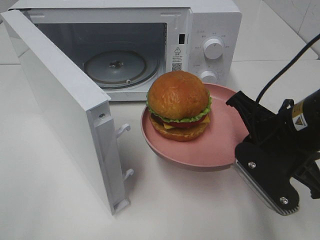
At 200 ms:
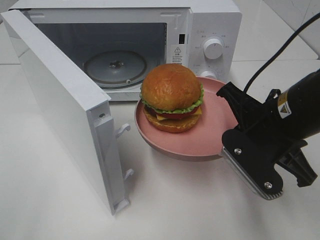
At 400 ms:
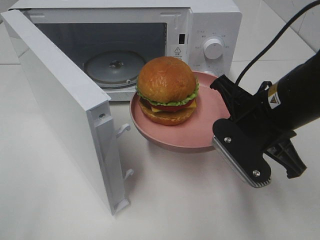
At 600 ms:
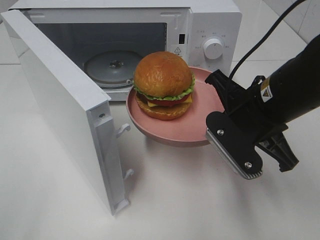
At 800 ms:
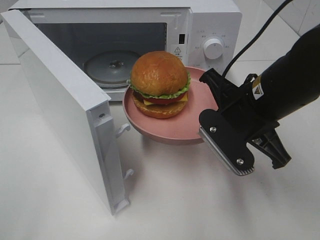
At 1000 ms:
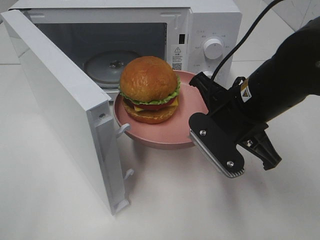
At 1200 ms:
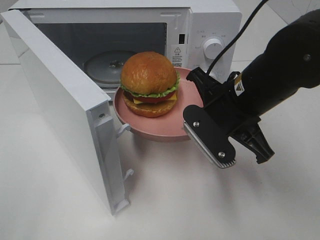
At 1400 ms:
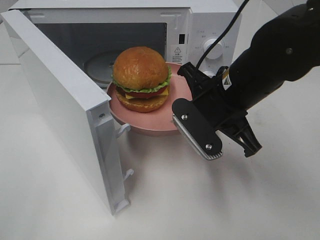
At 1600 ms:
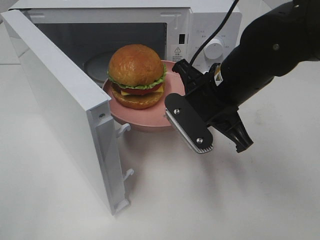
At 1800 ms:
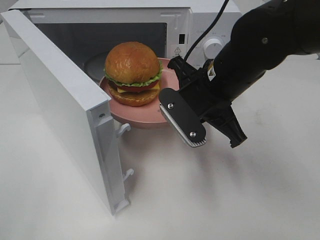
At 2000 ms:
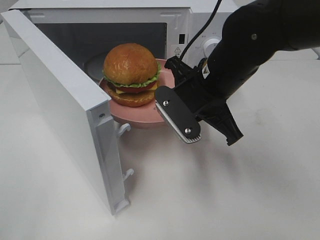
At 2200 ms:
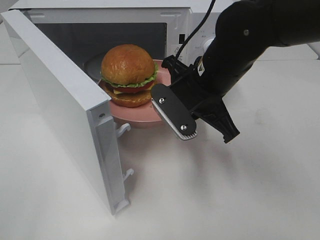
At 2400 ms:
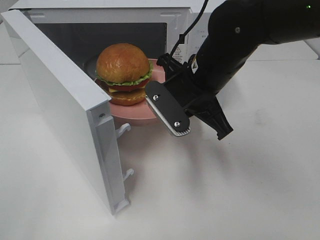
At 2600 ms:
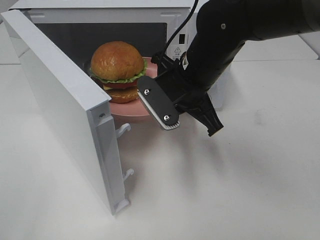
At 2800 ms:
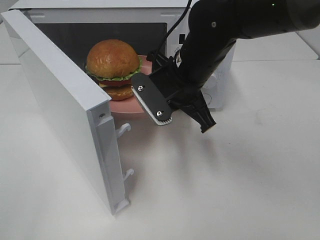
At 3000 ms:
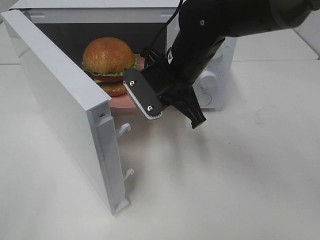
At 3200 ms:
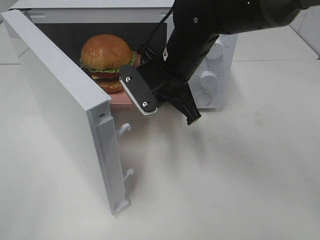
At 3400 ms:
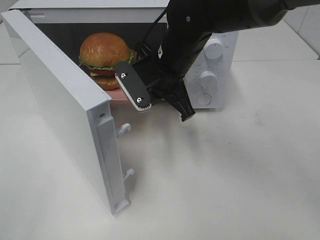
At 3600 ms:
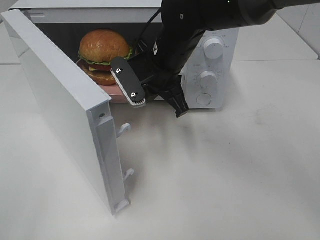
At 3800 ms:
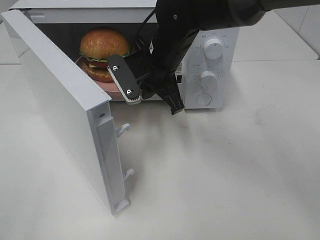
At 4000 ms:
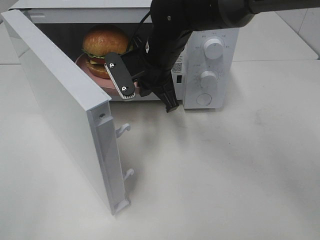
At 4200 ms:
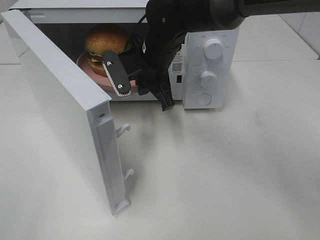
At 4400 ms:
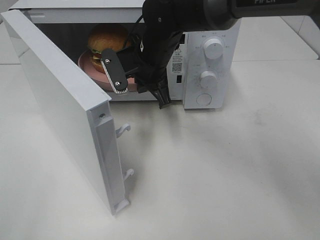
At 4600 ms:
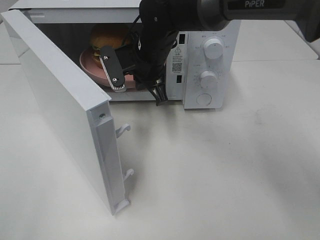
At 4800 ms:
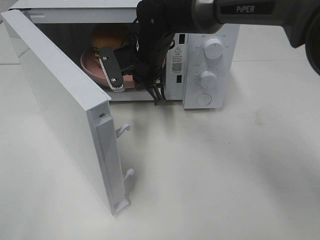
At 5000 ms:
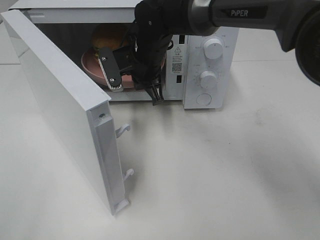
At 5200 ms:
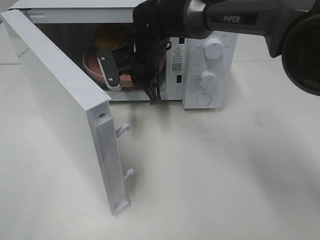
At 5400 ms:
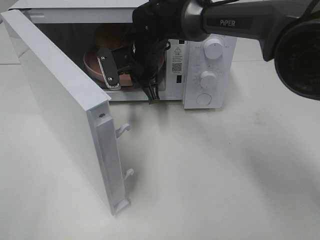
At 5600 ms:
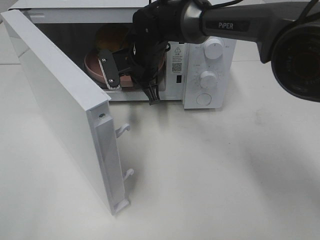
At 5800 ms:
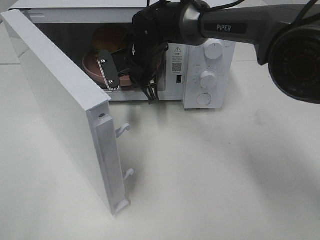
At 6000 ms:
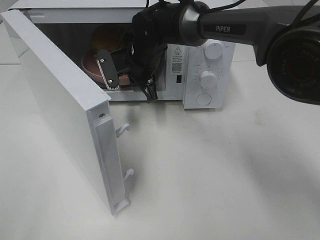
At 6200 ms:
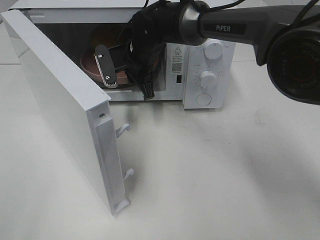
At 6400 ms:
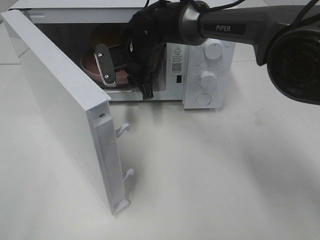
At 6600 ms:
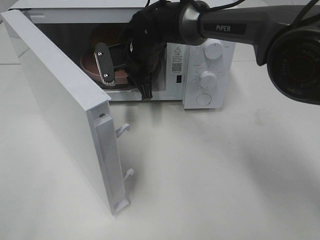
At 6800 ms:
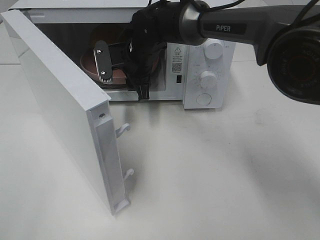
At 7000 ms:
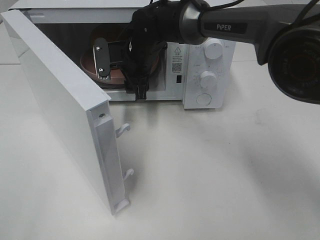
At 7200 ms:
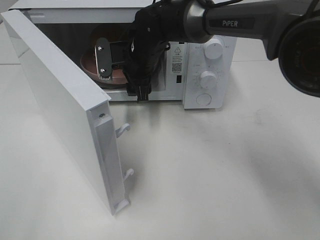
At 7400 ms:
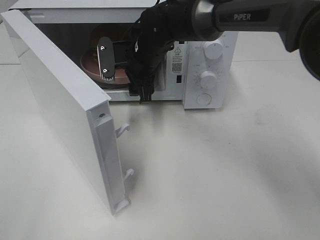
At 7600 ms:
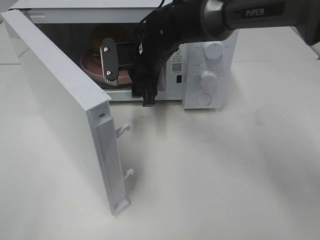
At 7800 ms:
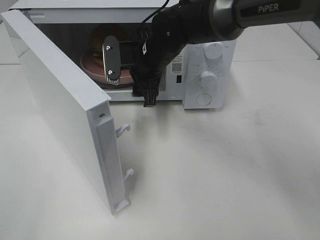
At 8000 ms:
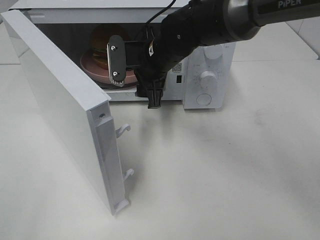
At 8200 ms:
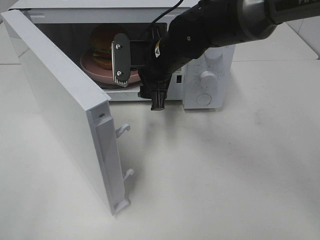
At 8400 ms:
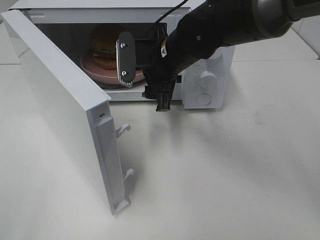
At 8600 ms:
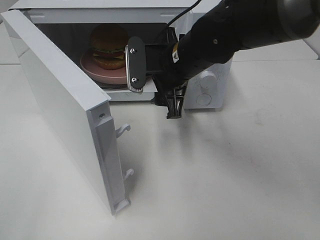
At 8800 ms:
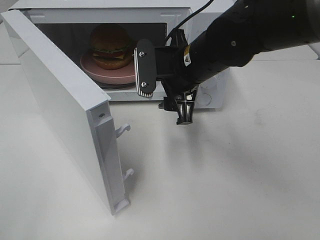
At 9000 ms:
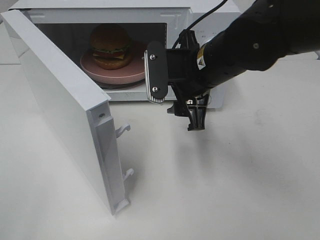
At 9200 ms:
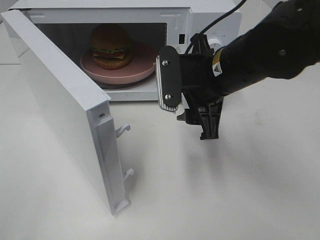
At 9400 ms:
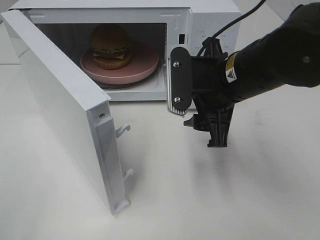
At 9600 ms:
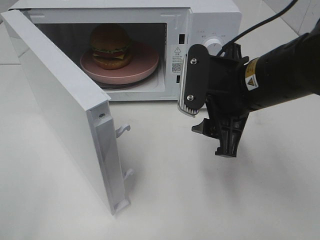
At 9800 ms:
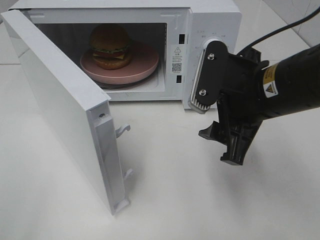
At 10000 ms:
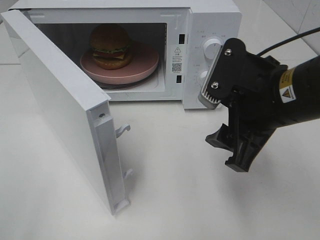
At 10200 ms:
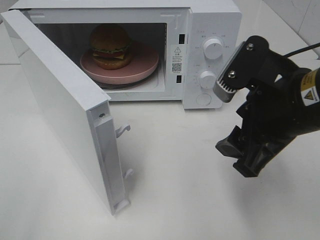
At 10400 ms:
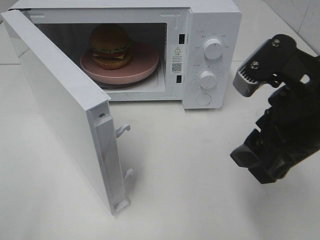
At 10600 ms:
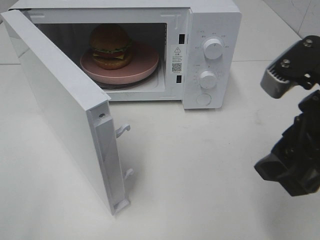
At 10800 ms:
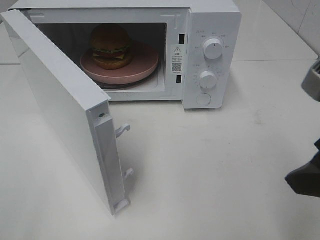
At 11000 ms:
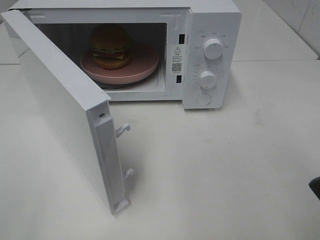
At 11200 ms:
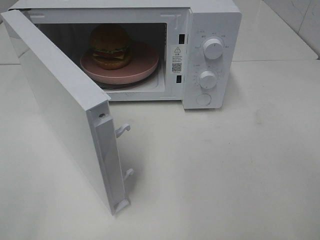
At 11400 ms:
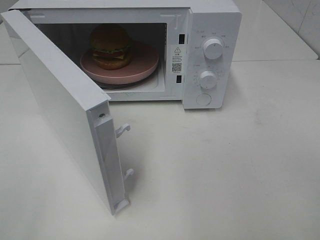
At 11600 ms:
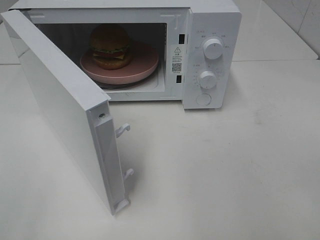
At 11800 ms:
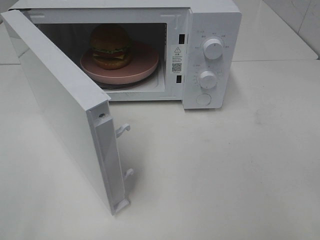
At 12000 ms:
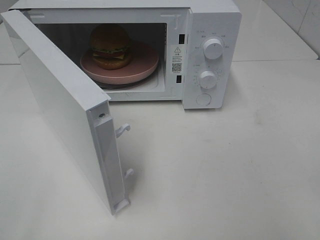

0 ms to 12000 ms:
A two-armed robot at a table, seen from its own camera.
Task of the whole recording: Heat the burger.
Step, 0 ms to 6200 ms: Right hand: place the plate in the microwave.
0 ms to 1600 ms: The right gripper travels forward and to the left by roughly 10 cm.
1600 ms to 3000 ms: The right gripper is displaced forward and to the left by some 10 cm.
3000 ms to 4400 ms: The right gripper goes roughly 5 cm forward.
4400 ms to 6000 ms: The right gripper shifts by roughly 5 cm.
6000 ms to 7600 ms: The right gripper opens its fingers.
7600 ms to 9000 ms: The right gripper is displaced backward and to the right by roughly 15 cm.
9000 ms to 10400 ms: The right gripper shifts roughly 15 cm backward and to the right.
10400 ms to 12000 ms: The right gripper goes approximately 15 cm backward and to the right.

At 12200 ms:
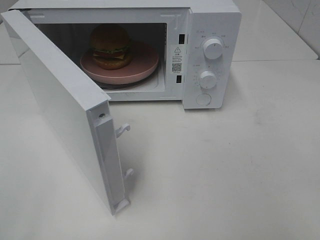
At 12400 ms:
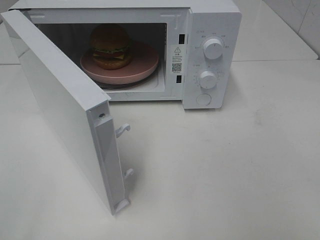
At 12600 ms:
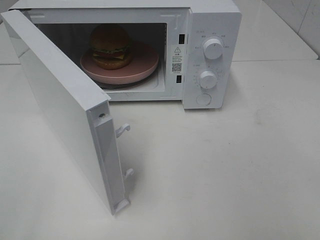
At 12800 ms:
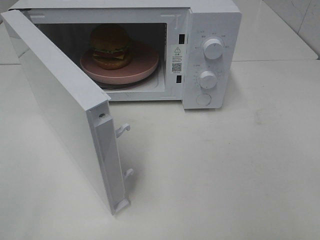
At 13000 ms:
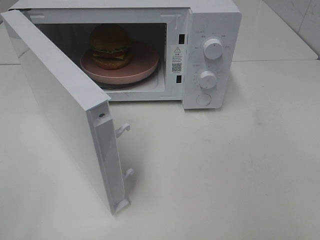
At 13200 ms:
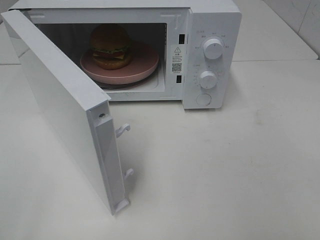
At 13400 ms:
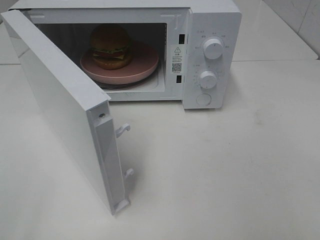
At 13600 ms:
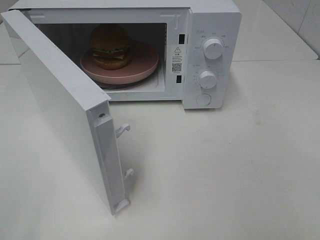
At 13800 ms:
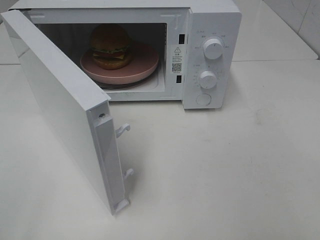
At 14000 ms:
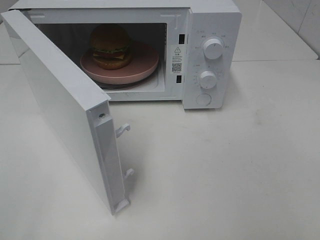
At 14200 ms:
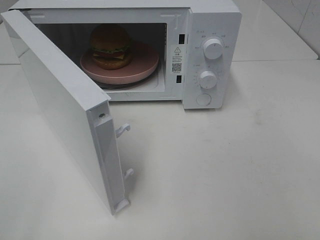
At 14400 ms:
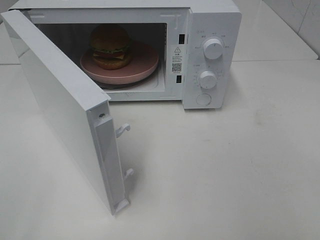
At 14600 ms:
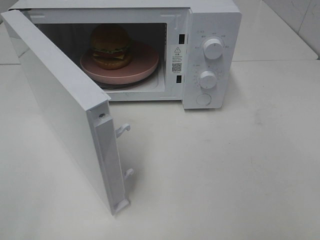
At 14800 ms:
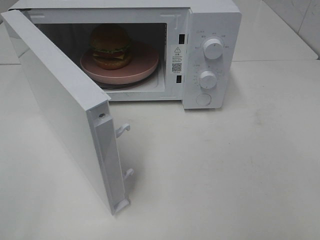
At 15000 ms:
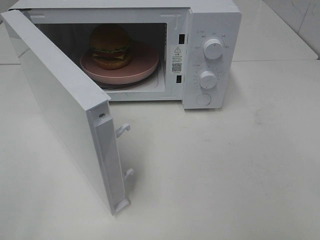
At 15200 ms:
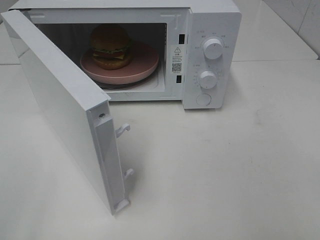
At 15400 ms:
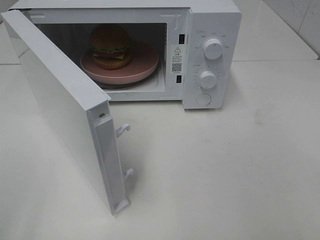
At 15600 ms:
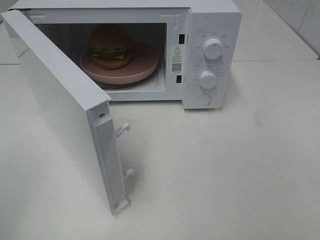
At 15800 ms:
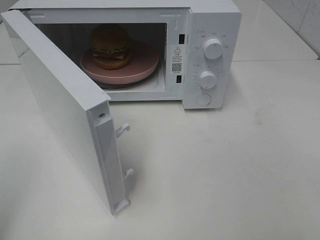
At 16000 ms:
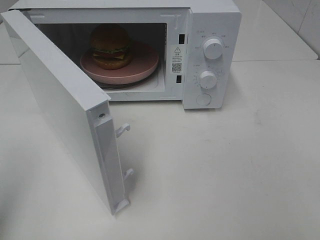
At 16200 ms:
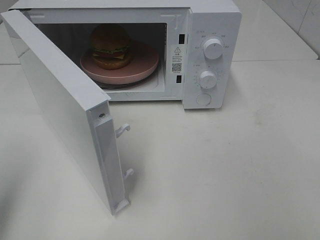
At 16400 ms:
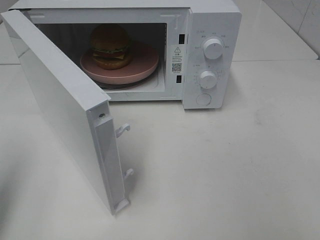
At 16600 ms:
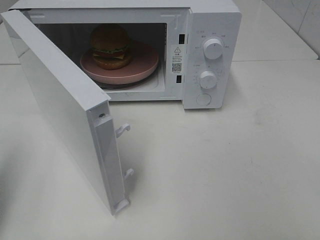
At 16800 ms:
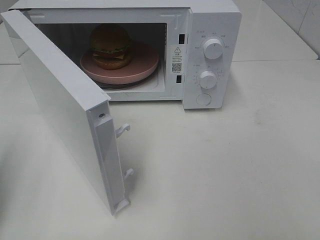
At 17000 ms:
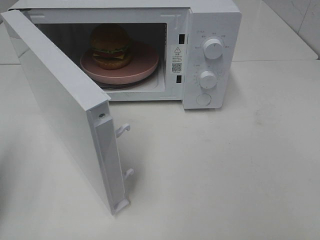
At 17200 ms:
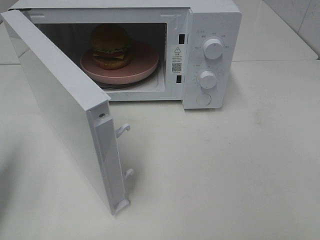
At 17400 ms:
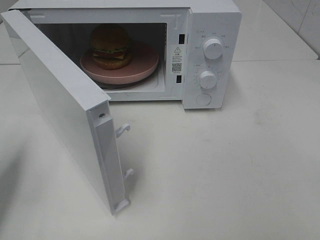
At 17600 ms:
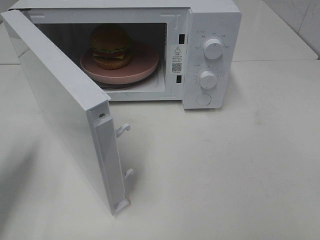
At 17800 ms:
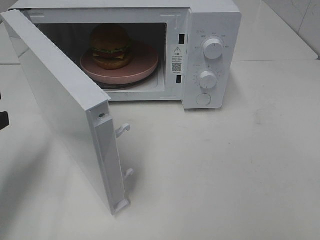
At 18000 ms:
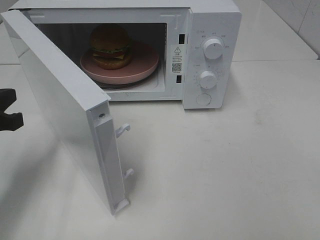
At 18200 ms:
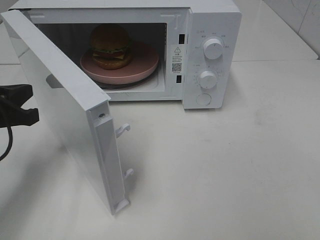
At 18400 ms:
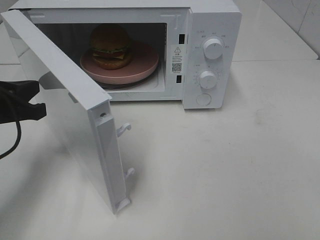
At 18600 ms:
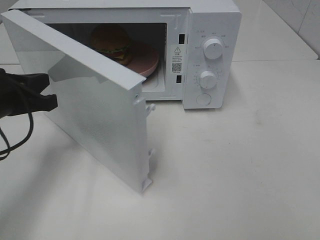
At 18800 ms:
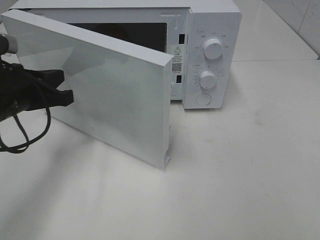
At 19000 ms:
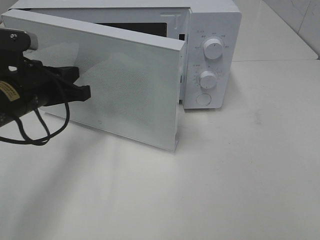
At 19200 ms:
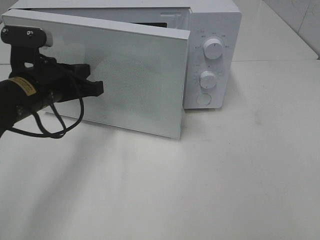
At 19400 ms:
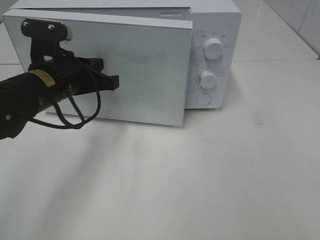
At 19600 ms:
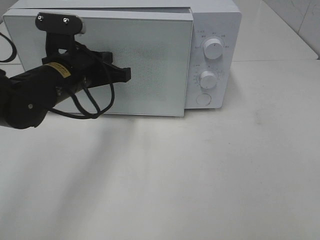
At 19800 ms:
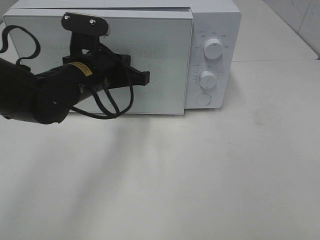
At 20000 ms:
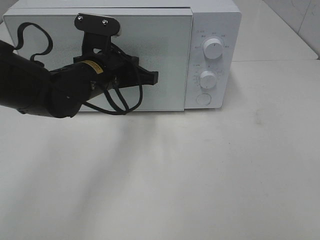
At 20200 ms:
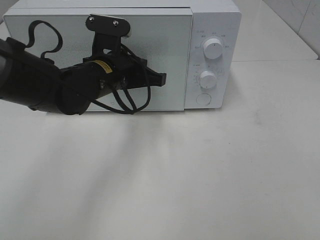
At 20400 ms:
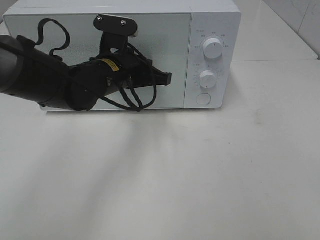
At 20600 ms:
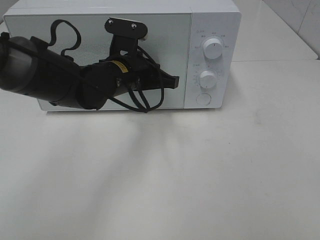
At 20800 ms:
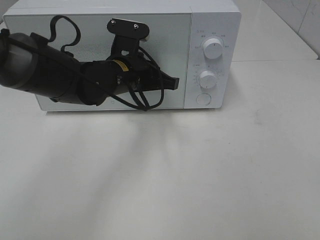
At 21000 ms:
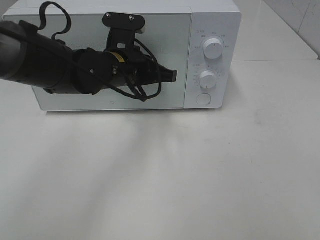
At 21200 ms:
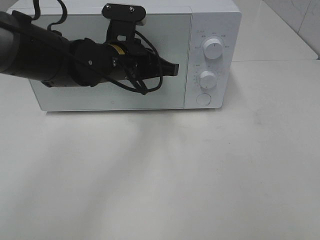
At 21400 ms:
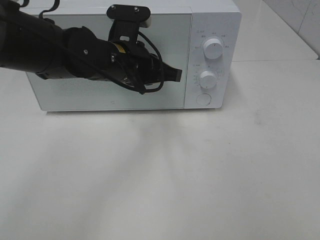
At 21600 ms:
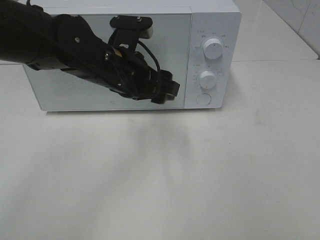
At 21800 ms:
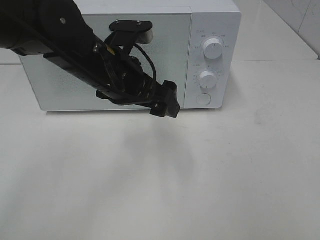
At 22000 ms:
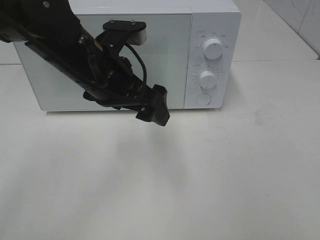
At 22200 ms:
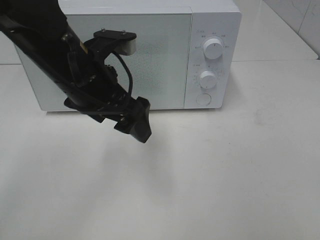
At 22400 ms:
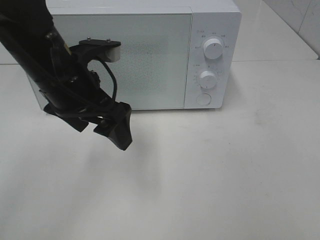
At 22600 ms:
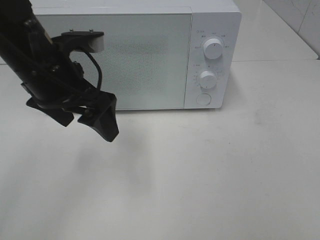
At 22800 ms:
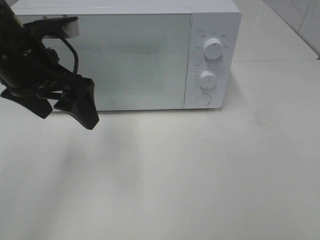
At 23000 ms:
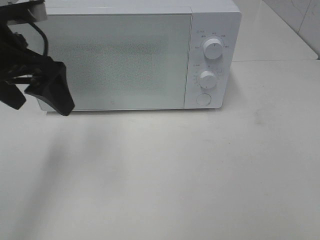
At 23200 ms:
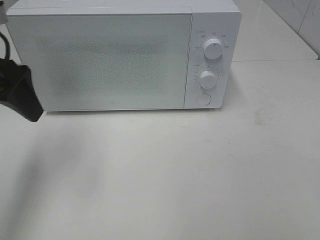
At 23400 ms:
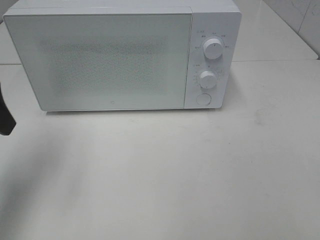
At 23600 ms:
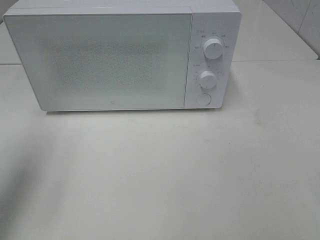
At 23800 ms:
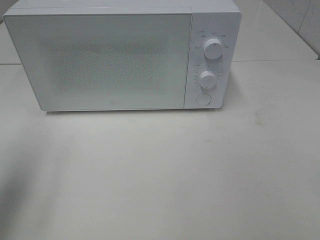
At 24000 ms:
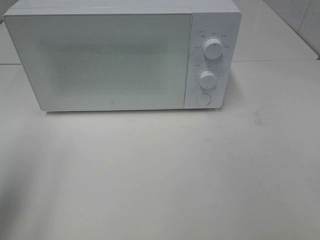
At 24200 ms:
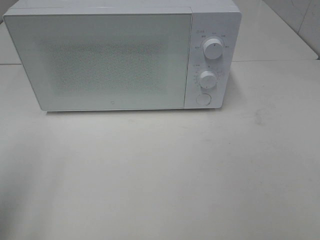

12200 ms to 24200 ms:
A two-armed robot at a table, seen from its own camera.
Task of the whole recording: Heat the burger.
Step, 12200 ms to 21200 ms: Left hand: close the microwave door.
15200 ms to 16600 ms: The left gripper travels forward by approximately 15 cm, and closes up.
16600 ms to 18200 ms: The left gripper heads forward, downward and to the right, covering approximately 15 cm.
18200 ms to 19800 ms: The left gripper goes some 20 cm to the right and forward.
19800 ms to 21200 ms: The left gripper travels to the right by roughly 5 cm.
21200 ms to 22600 ms: The left gripper moves to the left, backward and upward, roughly 10 cm, and opens up.
22600 ms to 24200 ms: The left gripper goes roughly 25 cm to the left and backward.
